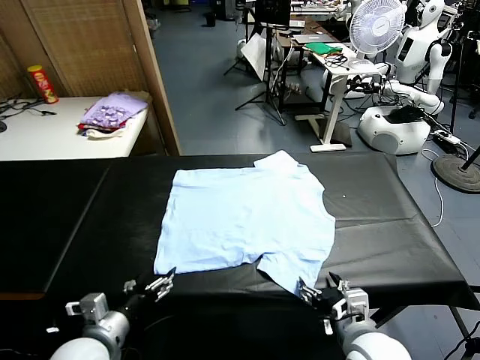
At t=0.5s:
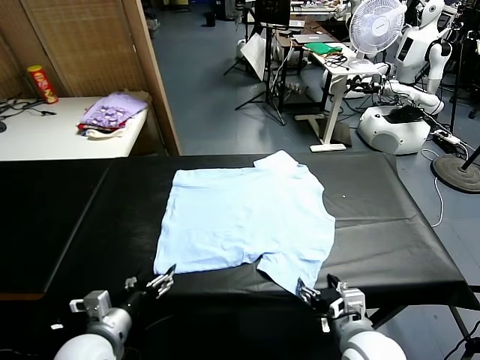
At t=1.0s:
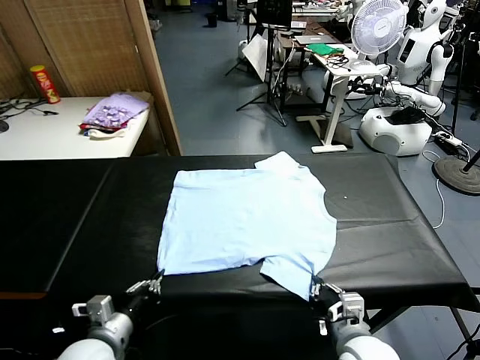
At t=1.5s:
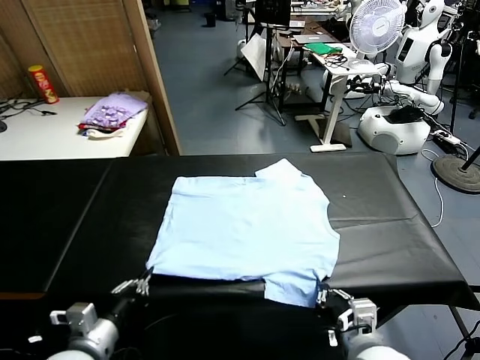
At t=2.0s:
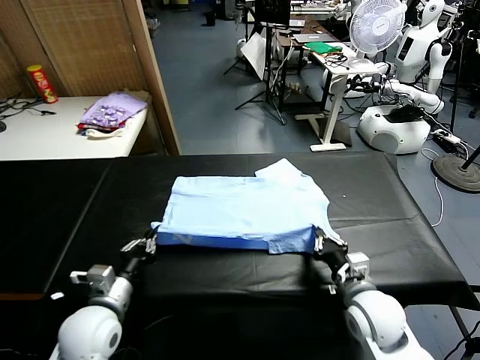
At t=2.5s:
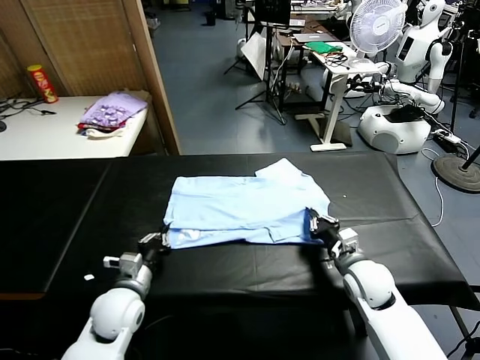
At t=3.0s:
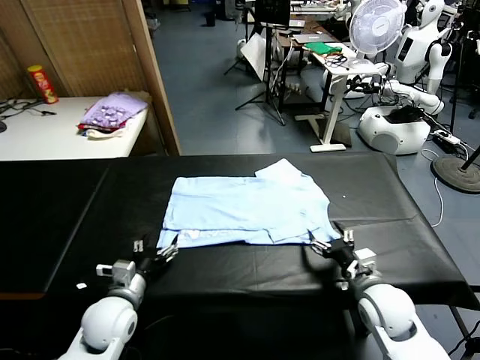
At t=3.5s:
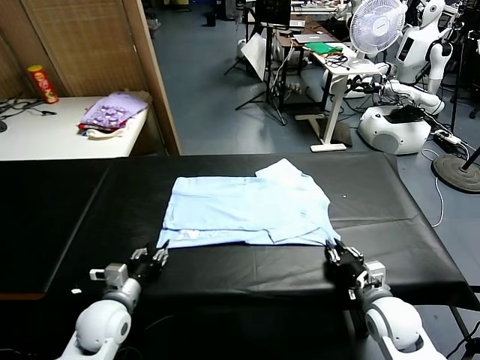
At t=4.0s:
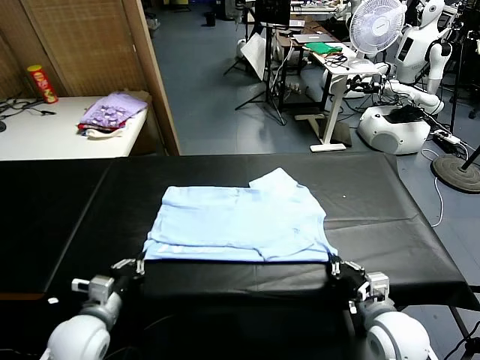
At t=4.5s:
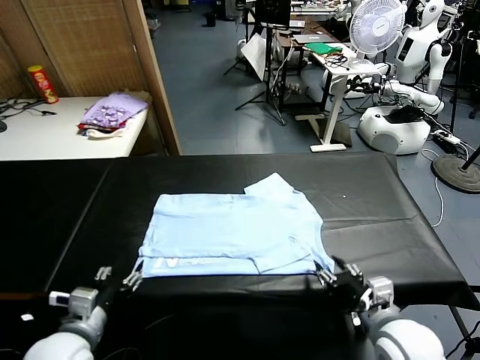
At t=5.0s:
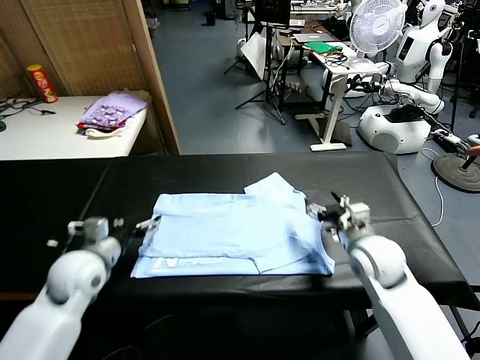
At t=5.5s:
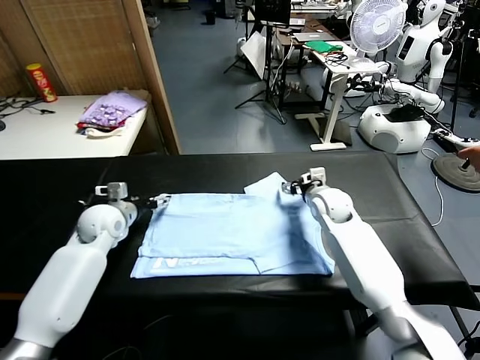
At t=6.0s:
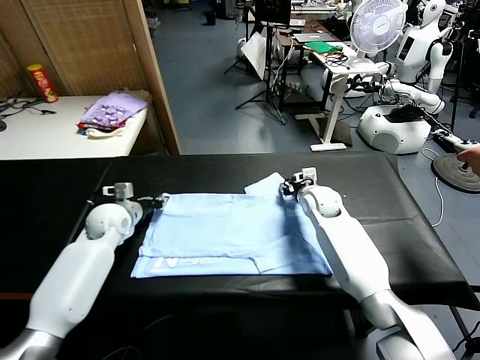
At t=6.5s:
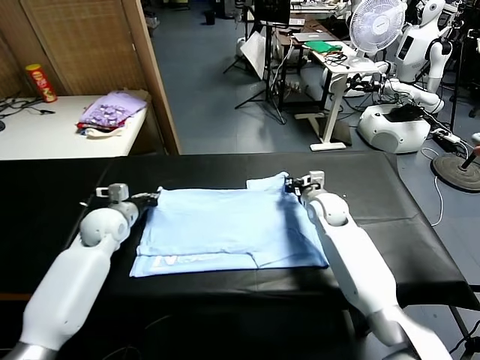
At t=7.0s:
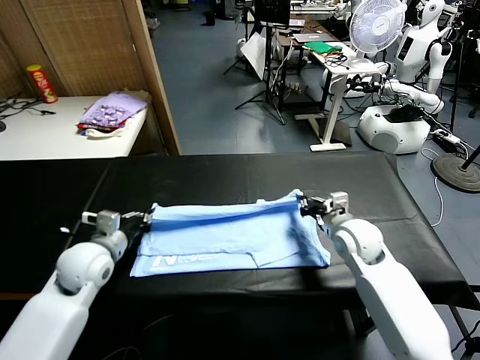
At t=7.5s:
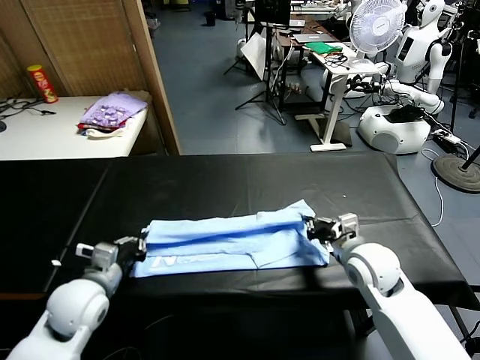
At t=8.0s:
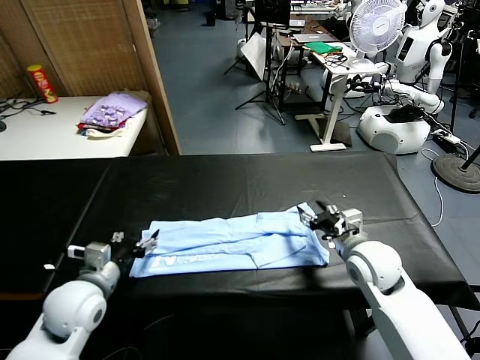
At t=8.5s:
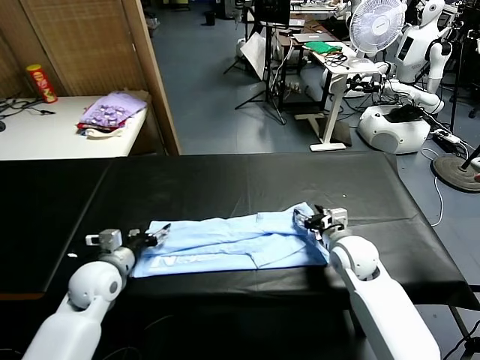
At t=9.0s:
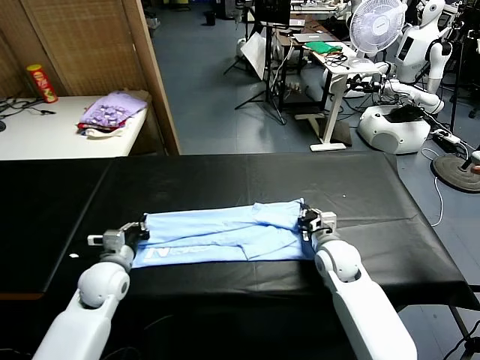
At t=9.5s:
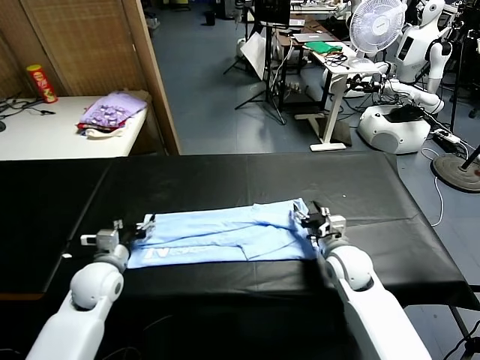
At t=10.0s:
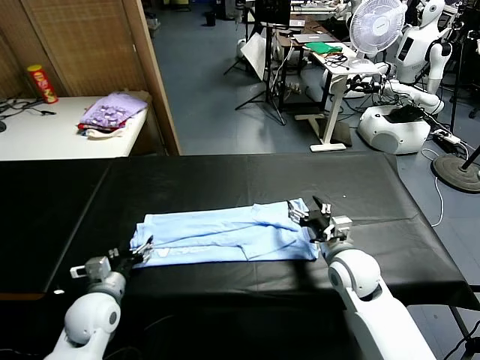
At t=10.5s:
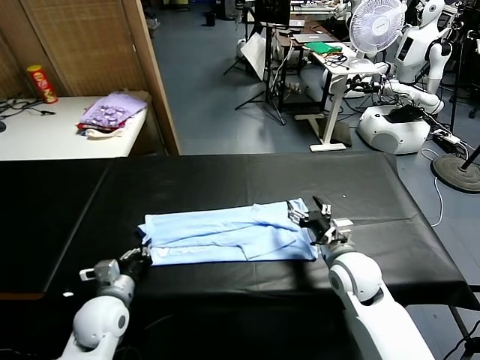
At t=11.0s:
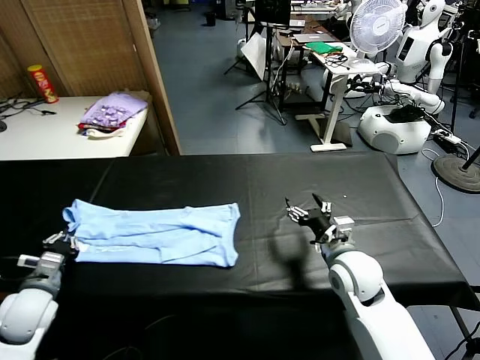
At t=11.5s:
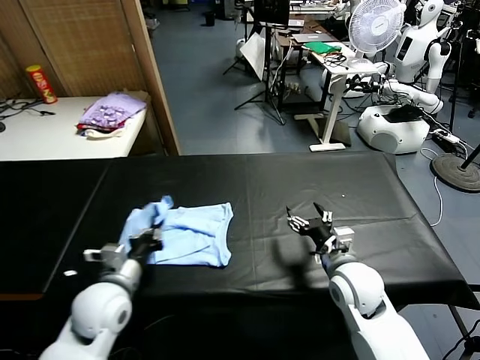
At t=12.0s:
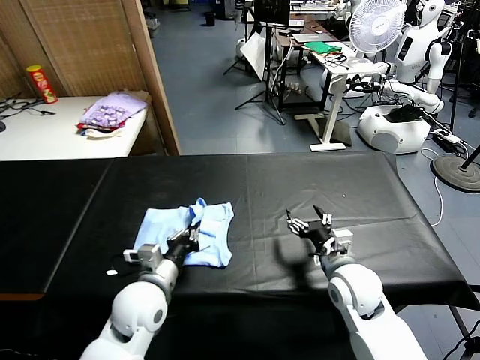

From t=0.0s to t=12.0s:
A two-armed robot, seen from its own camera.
Task of the whole recording: fold and organize the clothes.
Step, from t=0.0s to t=0.5s: use both grippers simultaneously to clamp the lower edge of the clothing fabric.
Step, from t=1.0s to t=2.5s: use both grippers to drag the lower edge of the fabric forward and fold it over the upper edge.
Step, from t=3.0s to t=4.0s: Drag the clothes downward with both gripper.
Step, from t=4.5s to t=6.0s: use both grippers simultaneously to clamp the upper edge of the clothing fabric.
Step, from t=6.5s to t=7.5s: use both grippers to drag the upper edge of the fabric backward and fold it over the lower edge.
Step, from t=8.0s to t=10.0s: use the left gripper to clamp the left edge of the fabric.
From t=2.0s to t=4.0s: The left gripper ends up about 5 cm from where it was, and opens, then closes once more. Meanwhile the right gripper shifts about 10 cm backward, and opens, then closes once more.
From t=4.0s to t=6.0s: Both grippers move forward, approximately 30 cm. The left gripper opens, then closes again, while the right gripper opens, then closes again.
From t=6.0s to t=8.0s: Both grippers move backward, approximately 20 cm. The right gripper opens up, while the left gripper opens up.
From t=8.0s to t=10.0s: The right gripper closes and opens again. Meanwhile the left gripper moves downward, about 5 cm, and closes, then reopens.
From t=10.0s to t=12.0s: The left gripper travels to the right by about 10 cm, and closes up.

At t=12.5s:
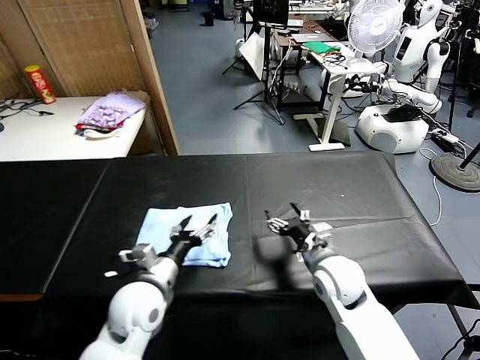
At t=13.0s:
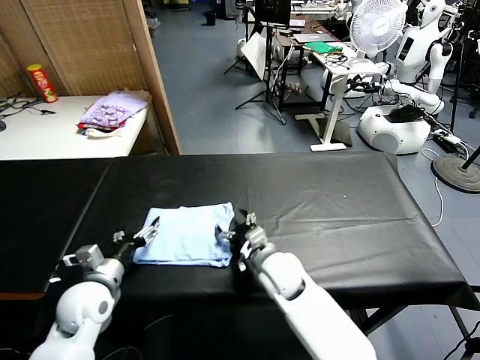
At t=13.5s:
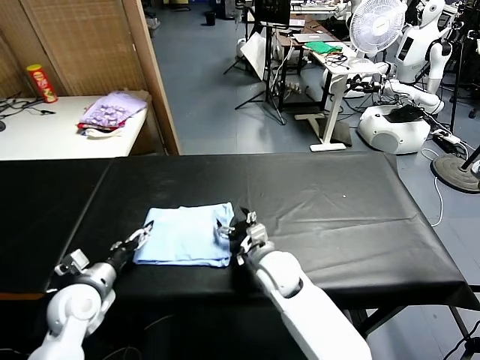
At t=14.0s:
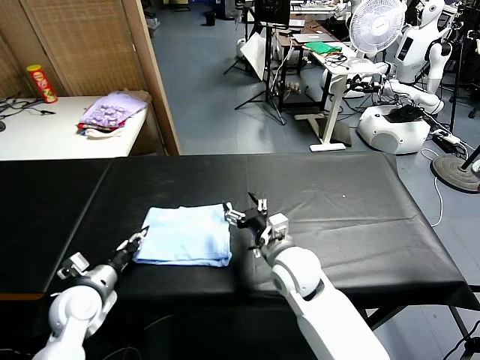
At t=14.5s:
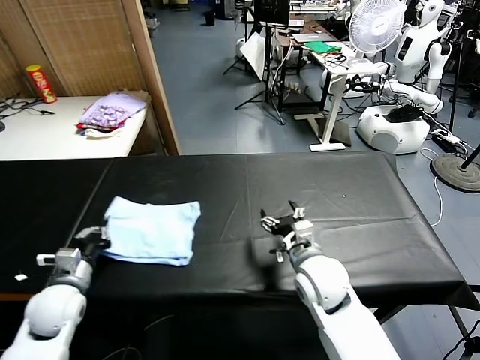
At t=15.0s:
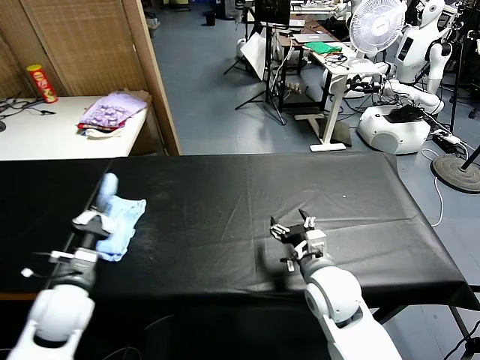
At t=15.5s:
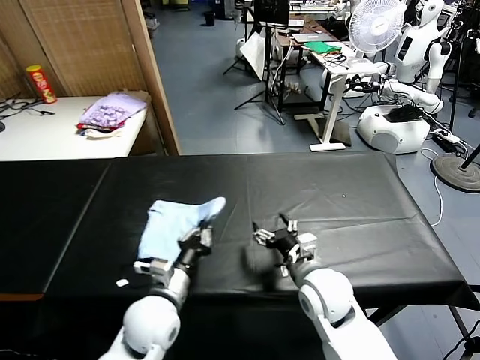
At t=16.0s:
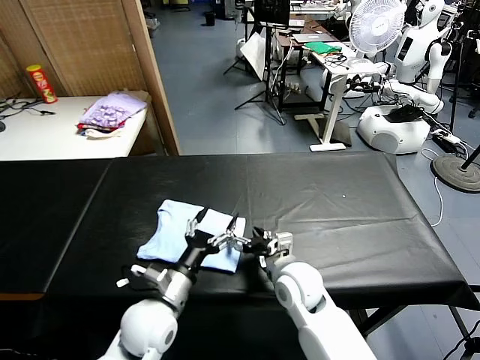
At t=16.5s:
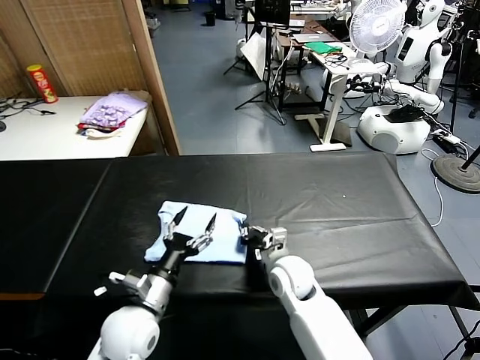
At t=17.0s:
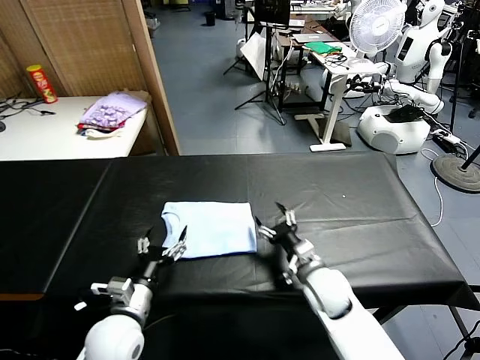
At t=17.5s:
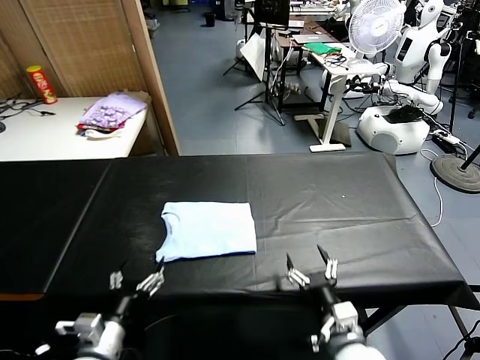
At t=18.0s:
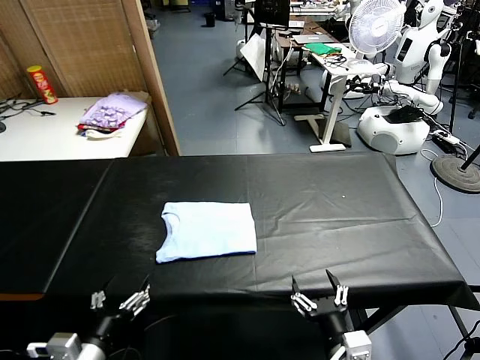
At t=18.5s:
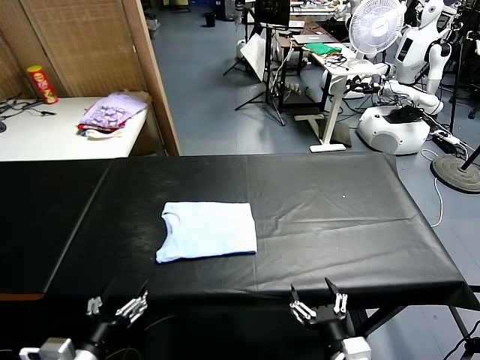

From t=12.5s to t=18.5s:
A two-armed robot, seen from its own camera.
Task of the whole recording: fold and organize the clothes.
Step, from t=12.5s to t=15.5s: Flip the folded clothes over with left gripper.
Step, from t=16.0s to t=16.5s: Drag the clothes to the center of the table.
From t=12.5s to t=14.5s: The right gripper travels to the left and back again, roughly 10 cm each way. The left gripper heads to the left, covering roughly 15 cm, and closes up.
From t=14.5s to t=16.5s: The left gripper goes roughly 15 cm to the right, and opens its fingers. Meanwhile the right gripper heads downward, covering some 10 cm, and closes its fingers.
From t=16.5s to t=18.5s: The right gripper travels backward by approximately 25 cm, and opens its fingers. The left gripper shifts about 15 cm backward and to the left.

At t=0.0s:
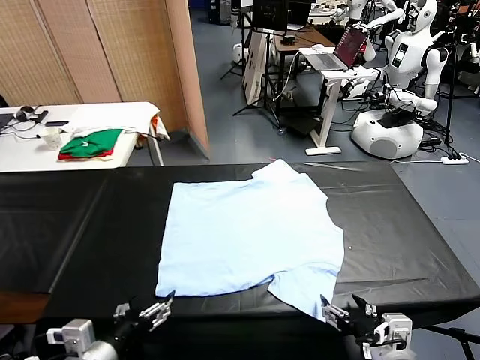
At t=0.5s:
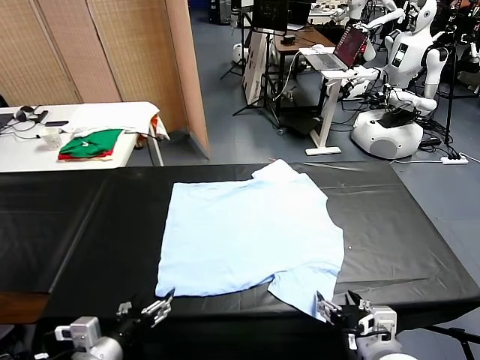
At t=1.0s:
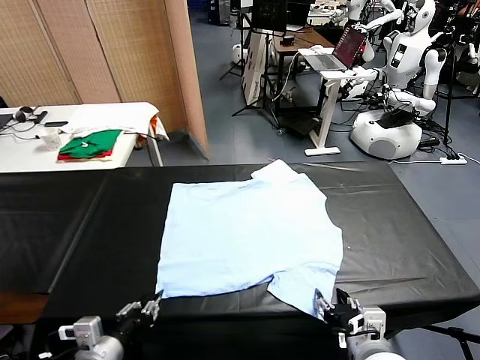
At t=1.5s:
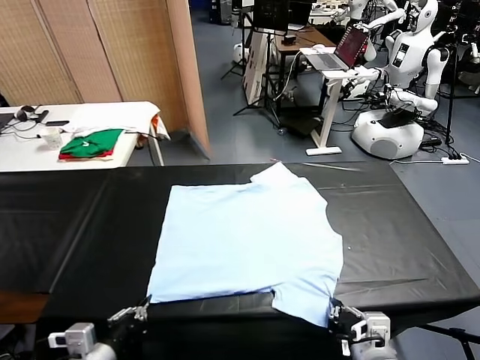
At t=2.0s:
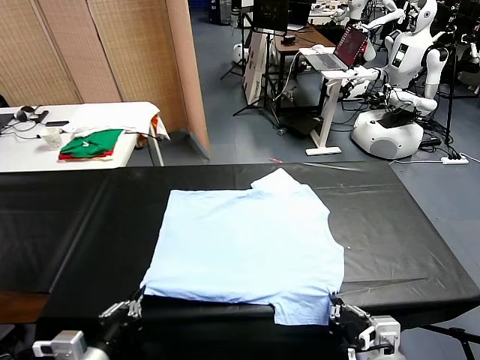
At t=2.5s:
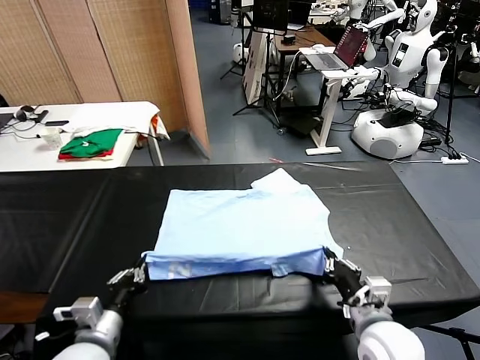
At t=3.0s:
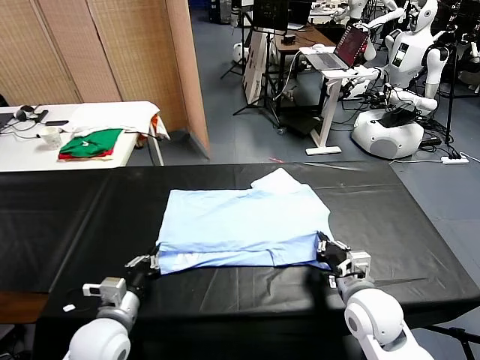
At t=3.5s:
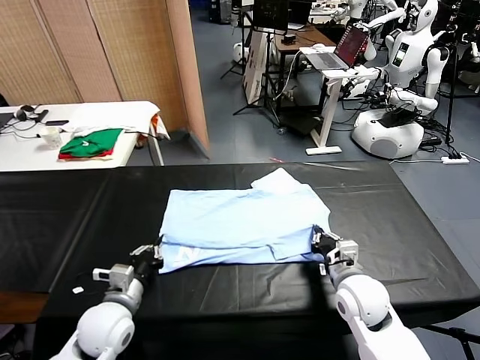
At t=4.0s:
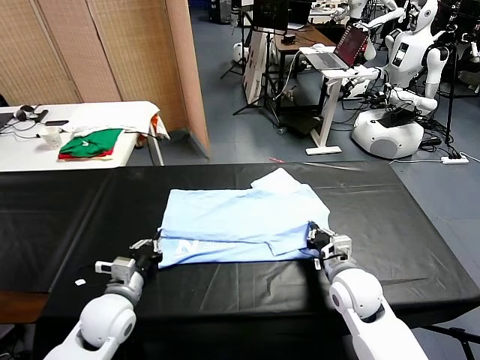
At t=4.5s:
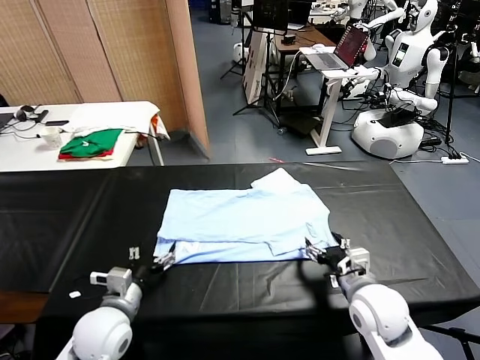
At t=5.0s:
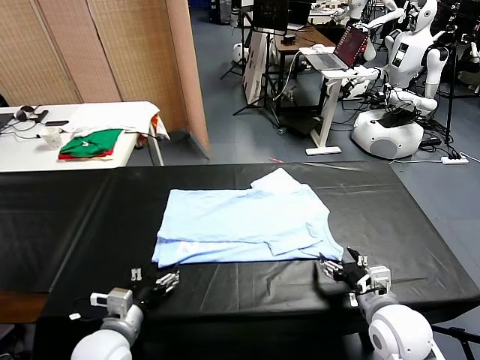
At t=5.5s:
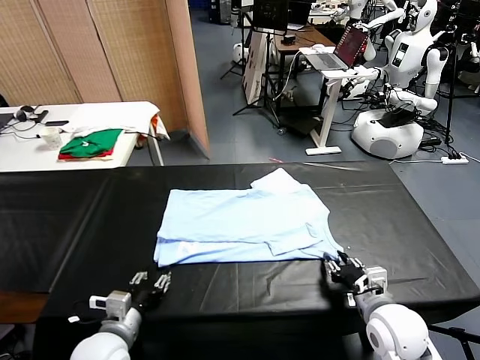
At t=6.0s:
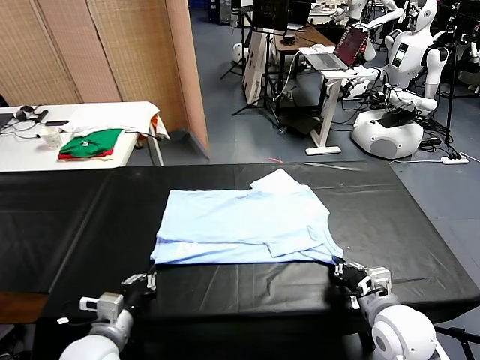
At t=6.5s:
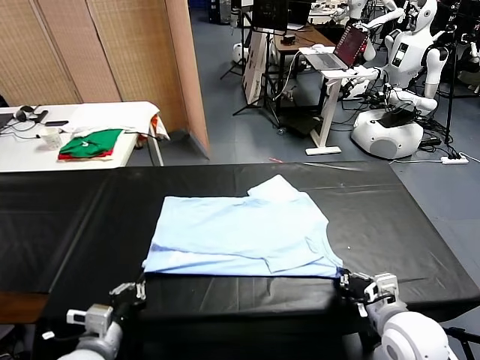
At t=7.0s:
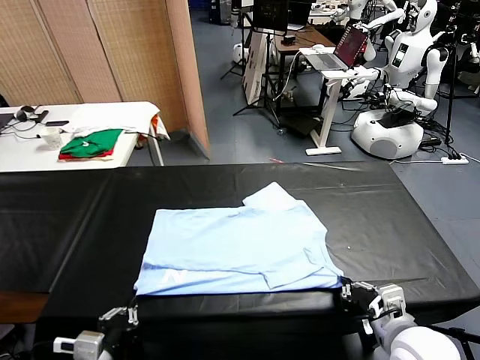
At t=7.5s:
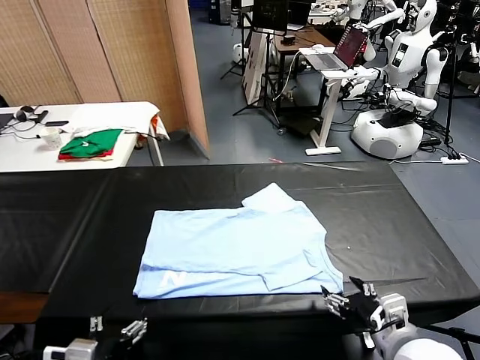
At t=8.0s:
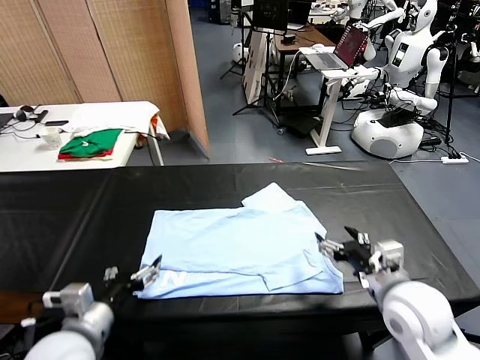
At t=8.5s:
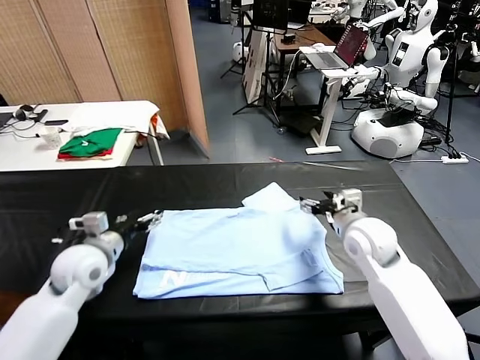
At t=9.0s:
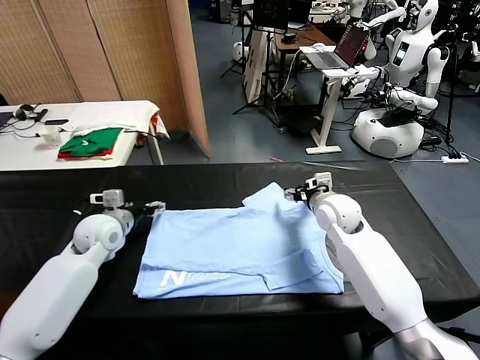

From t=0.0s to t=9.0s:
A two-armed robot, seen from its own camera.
Task of the whole recording: fold and organize the clothes.
Step, from t=0.0s to t=1.0s: use both grippers simultaneously to clamp the lower edge of the clothing fabric.
Step, from t=1.5s to t=4.0s: use both grippers to drag the lower edge of the fabric forward and fold it over the upper edge.
Step, from t=4.5s to t=7.5s: Drag the clothes downward with both gripper.
From t=2.0s to t=4.5s: Both grippers move forward, approximately 10 cm. The left gripper opens up. Meanwhile the right gripper opens its fingers.
From t=4.5s to t=7.0s: The left gripper goes some 10 cm backward, and closes up. The right gripper moves backward, approximately 5 cm, and closes.
From t=7.0s to t=9.0s: Both grippers move forward, roughly 30 cm. The right gripper opens. Meanwhile the left gripper opens up.
